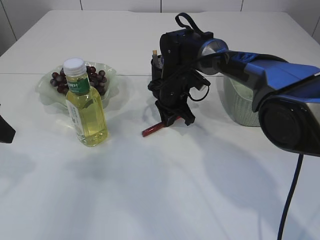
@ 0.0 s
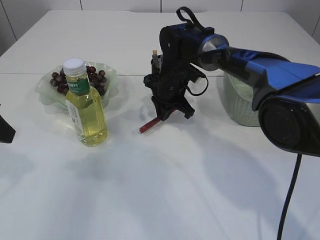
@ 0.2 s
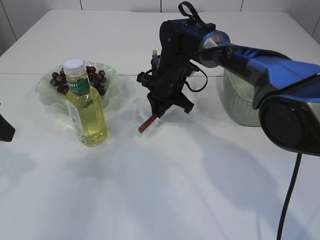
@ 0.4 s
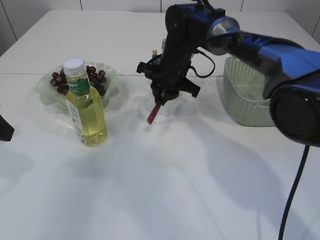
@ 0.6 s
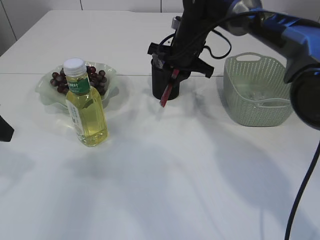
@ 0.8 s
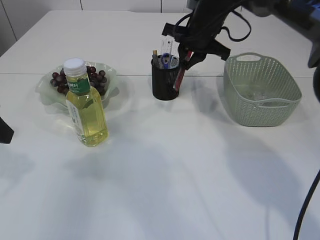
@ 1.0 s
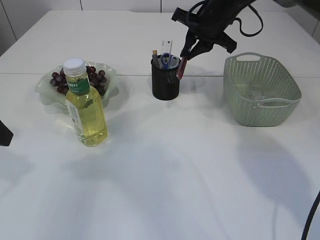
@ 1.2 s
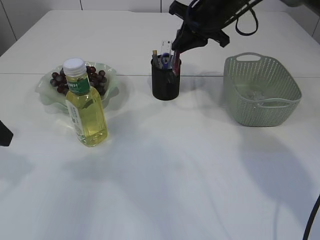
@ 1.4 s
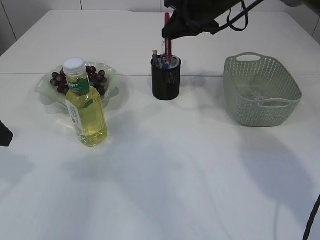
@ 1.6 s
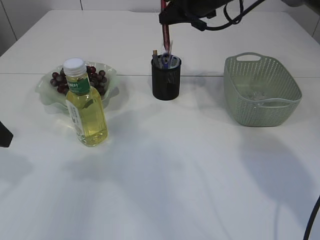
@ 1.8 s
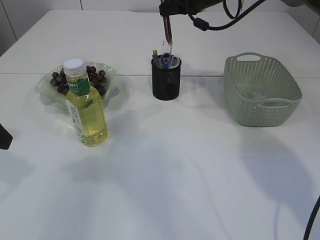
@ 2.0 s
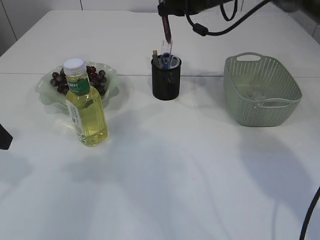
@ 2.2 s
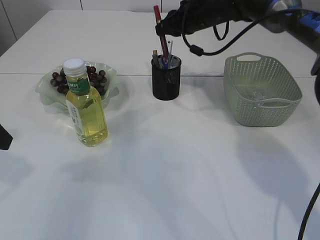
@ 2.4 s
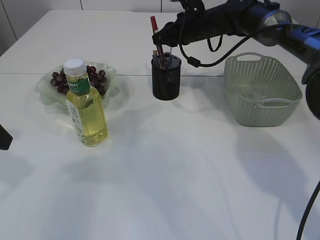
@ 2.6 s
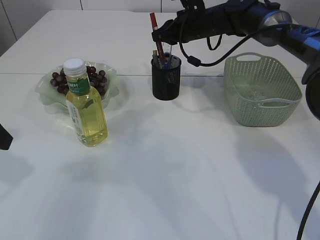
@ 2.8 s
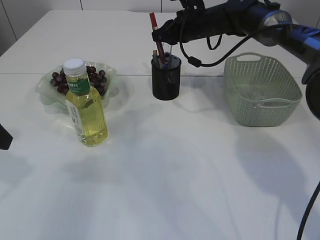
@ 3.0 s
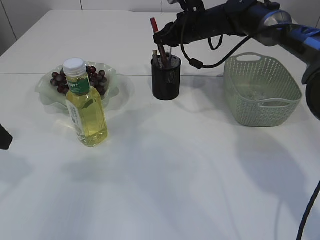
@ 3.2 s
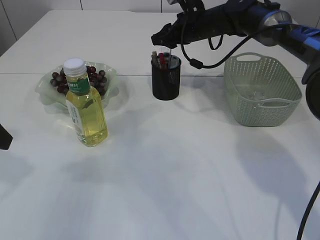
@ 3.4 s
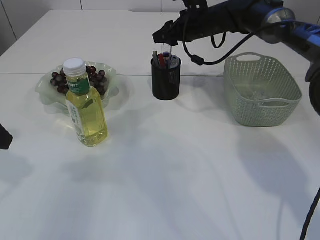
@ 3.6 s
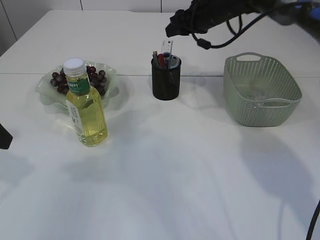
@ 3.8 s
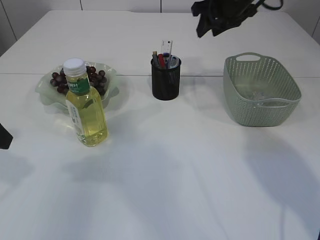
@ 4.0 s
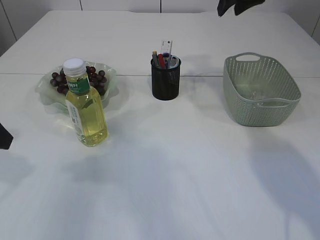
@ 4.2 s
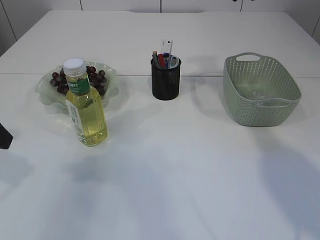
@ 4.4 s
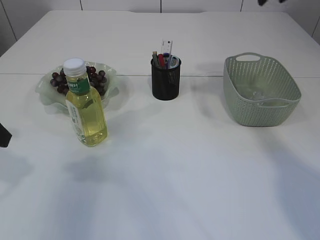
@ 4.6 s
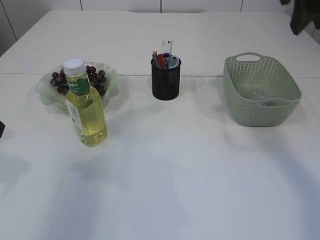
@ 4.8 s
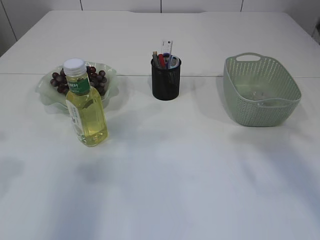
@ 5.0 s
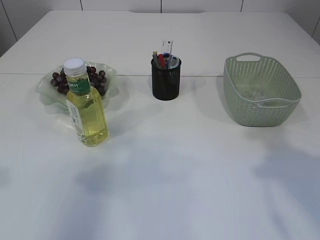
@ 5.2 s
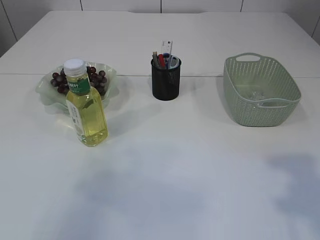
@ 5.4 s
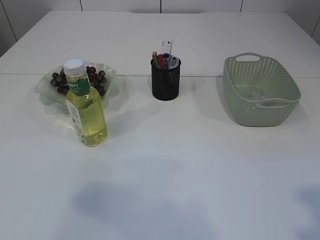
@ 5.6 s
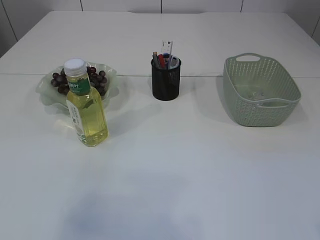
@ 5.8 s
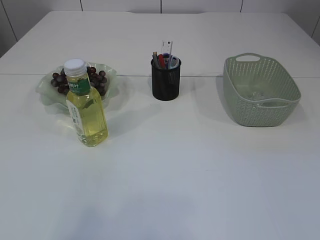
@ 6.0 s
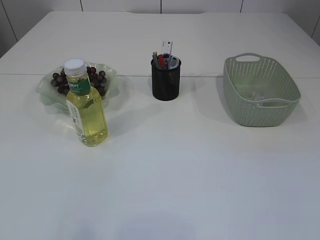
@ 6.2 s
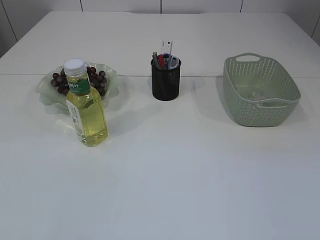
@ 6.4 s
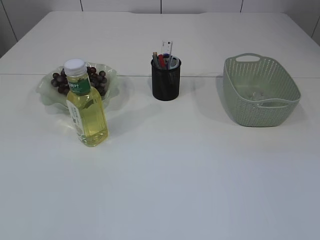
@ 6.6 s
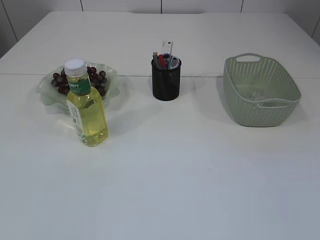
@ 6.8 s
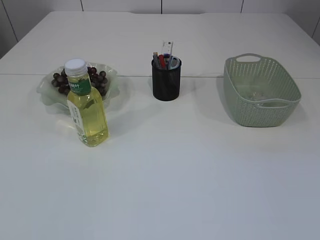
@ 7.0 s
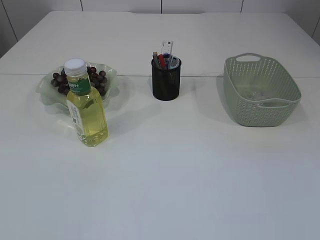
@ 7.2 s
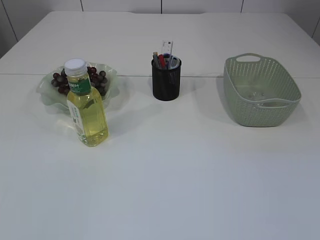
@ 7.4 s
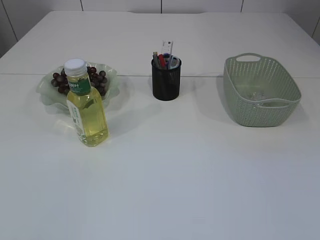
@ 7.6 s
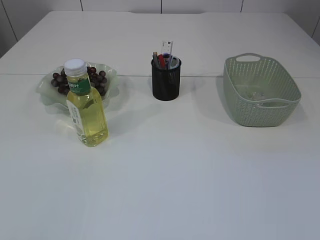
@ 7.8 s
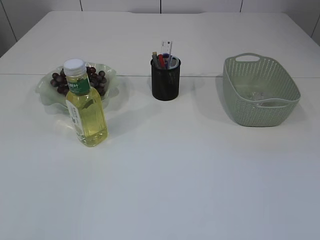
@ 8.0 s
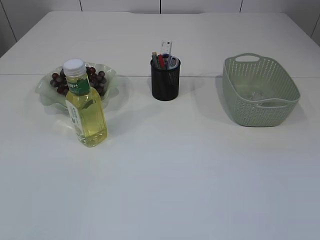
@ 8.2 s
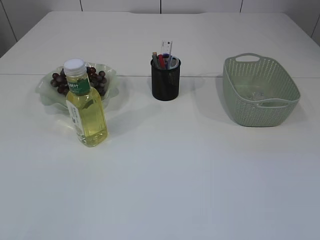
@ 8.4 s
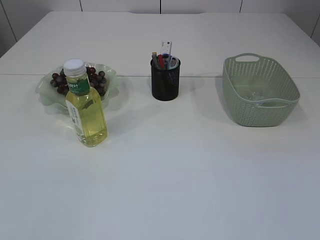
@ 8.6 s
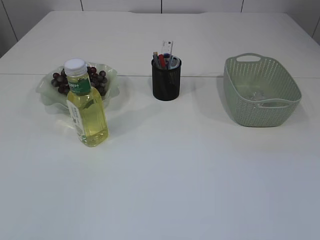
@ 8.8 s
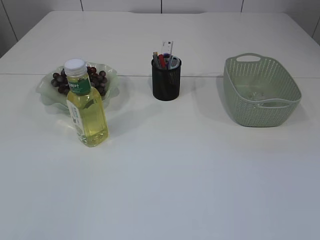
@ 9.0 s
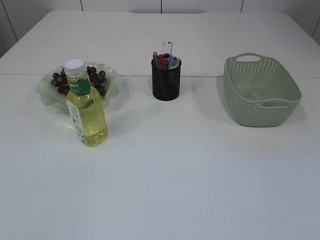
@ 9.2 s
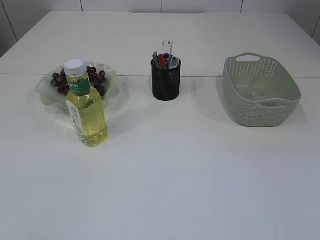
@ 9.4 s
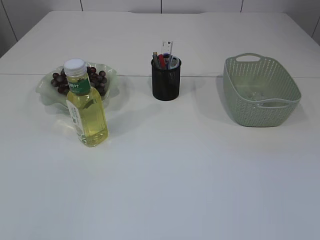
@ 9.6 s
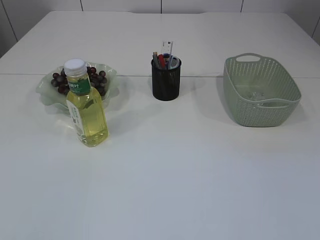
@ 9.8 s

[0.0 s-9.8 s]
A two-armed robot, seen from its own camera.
Step, 1.0 to 4.0 s: place the red glue into the pen holder.
0.0 to 1.4 s: The right gripper is displaced upward and to the right by approximately 15 cm.
1.4 to 2.8 s: The right gripper shifts some 5 cm forward.
2.8 to 4.2 s: The right gripper heads upward, backward and to the right, covering approximately 15 cm, and opens its fingers.
4.2 to 5.6 s: The left gripper moves backward and upward, some 15 cm. Meanwhile the right gripper heads backward, covering about 40 cm.
5.6 to 7.0 s: The right gripper heads backward and downward, covering some 10 cm. Meanwhile the left gripper moves backward, some 20 cm.
